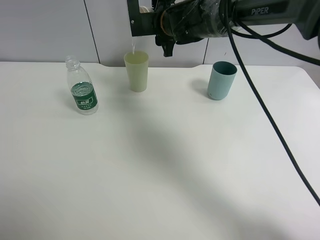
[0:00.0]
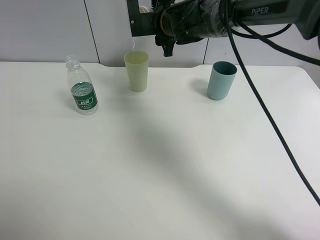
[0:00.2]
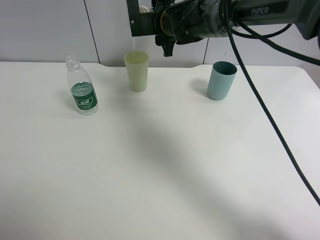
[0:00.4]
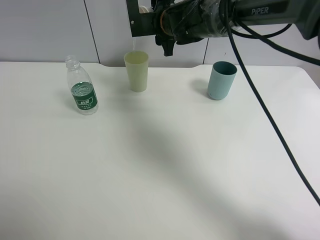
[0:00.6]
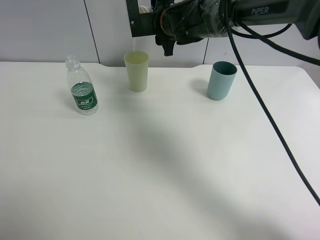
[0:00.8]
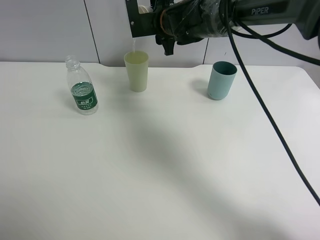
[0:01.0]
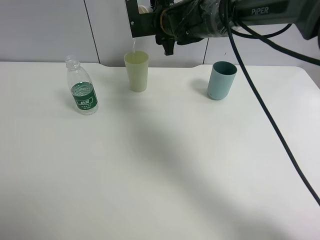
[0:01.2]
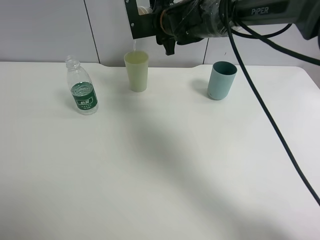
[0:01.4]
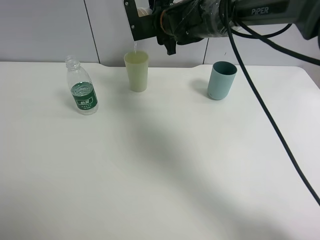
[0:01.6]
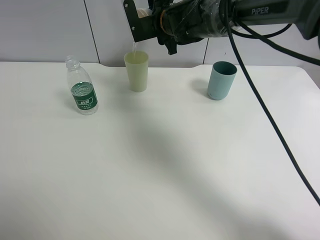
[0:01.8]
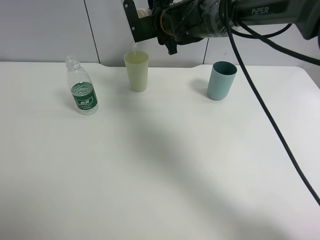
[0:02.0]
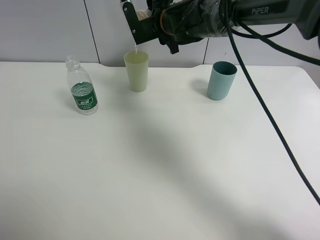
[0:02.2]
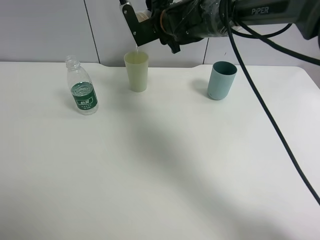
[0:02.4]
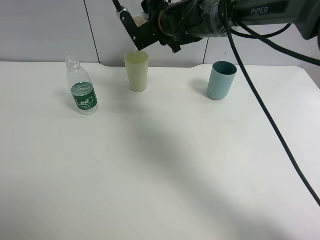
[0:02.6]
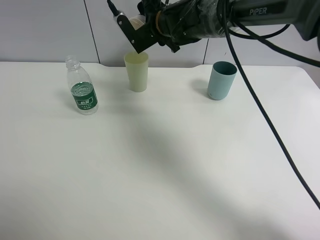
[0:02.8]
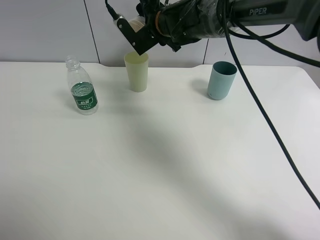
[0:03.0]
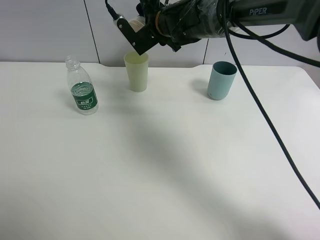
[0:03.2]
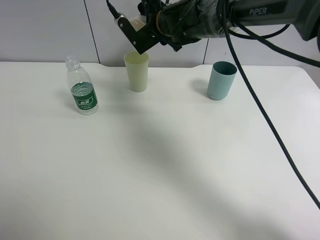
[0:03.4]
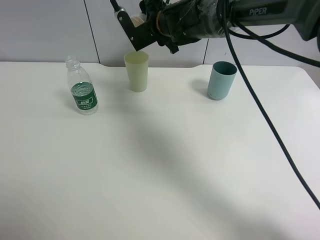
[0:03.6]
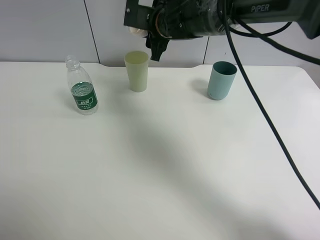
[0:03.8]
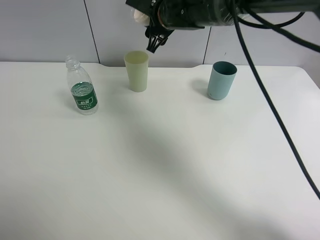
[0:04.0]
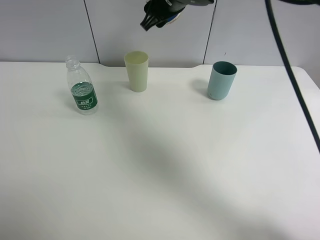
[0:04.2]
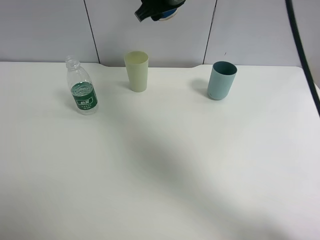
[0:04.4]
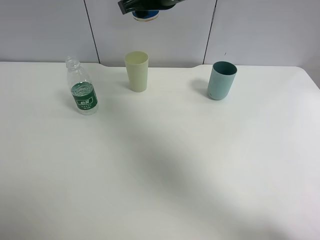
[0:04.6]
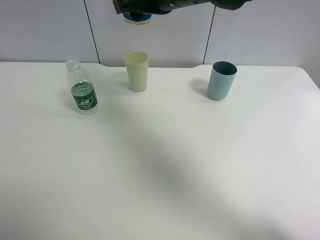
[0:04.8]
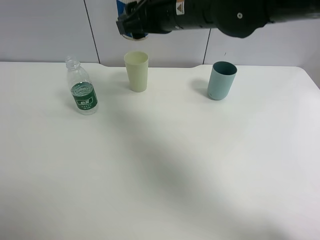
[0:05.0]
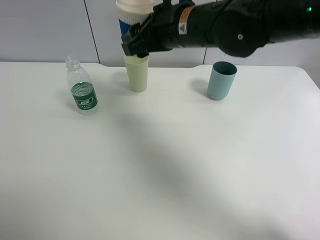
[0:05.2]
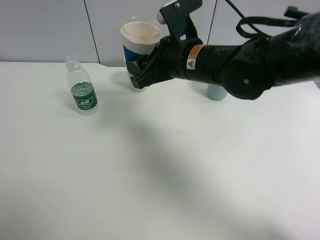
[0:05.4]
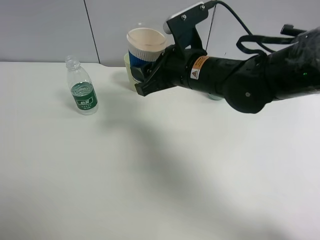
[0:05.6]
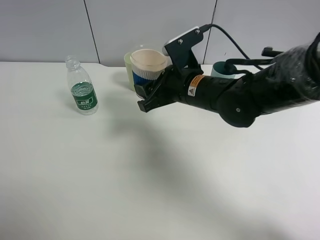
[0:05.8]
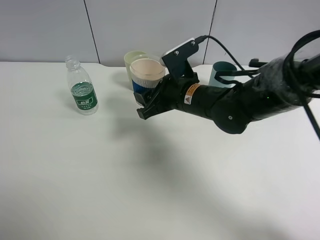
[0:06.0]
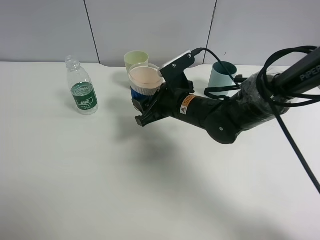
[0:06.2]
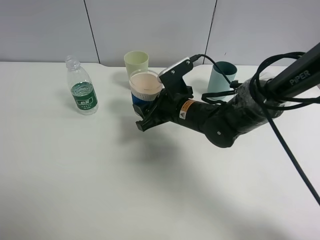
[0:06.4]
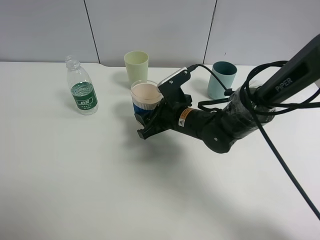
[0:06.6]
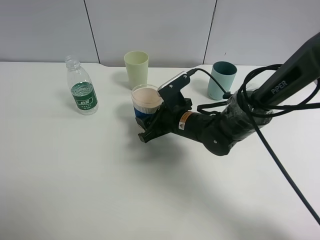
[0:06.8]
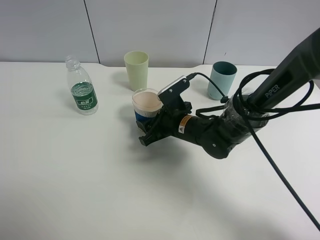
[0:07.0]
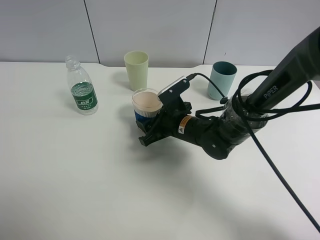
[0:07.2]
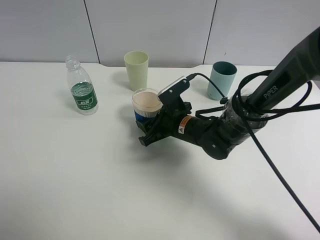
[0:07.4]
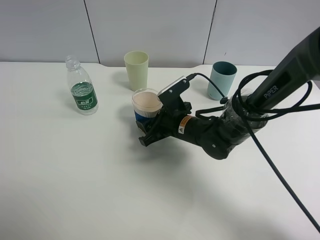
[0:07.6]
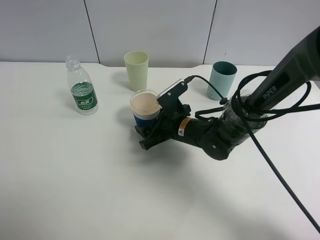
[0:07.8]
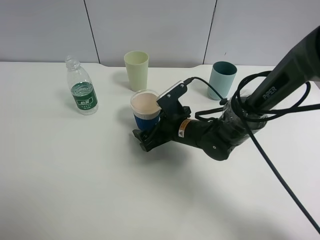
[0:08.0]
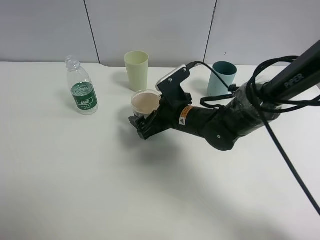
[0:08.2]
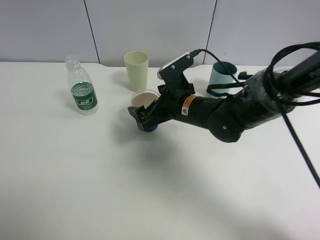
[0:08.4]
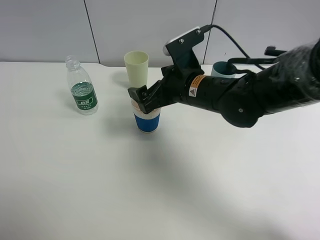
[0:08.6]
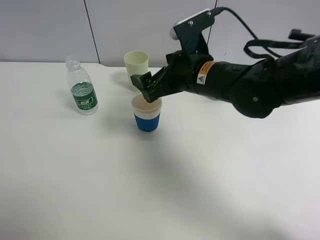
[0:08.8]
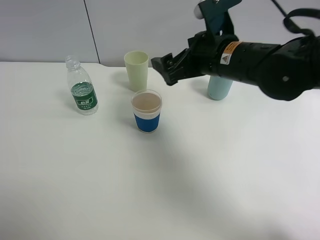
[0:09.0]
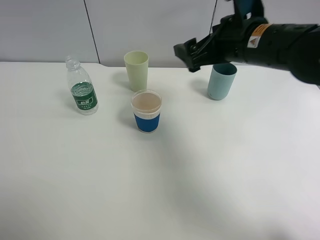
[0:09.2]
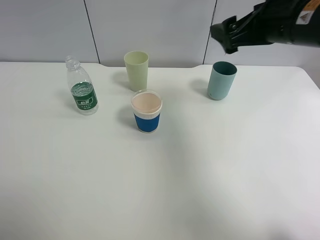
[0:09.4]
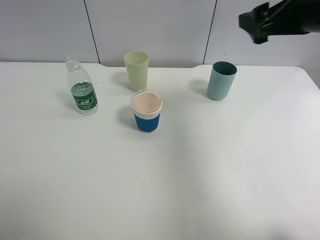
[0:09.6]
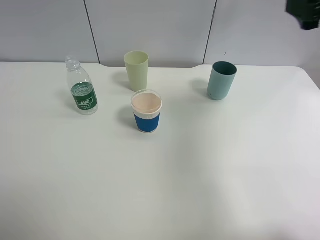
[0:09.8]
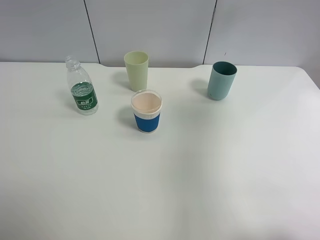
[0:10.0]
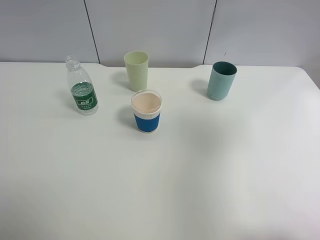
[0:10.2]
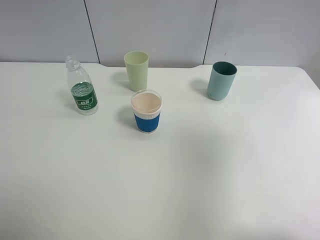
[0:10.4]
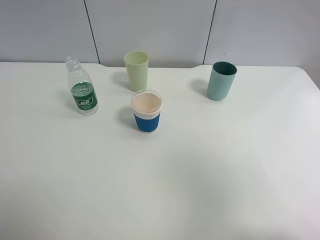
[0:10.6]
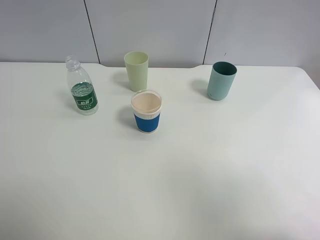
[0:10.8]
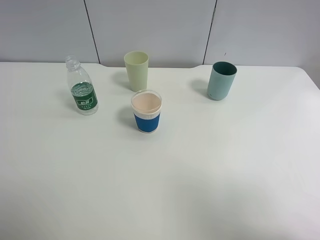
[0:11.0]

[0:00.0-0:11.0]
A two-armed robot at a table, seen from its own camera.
Task of the whole recording: use a clamp to hold the bottle of the drink, pour the beverage into a random cup, then clamp the cup containing the drink and pour the drink into another random cup.
Step, 0:00.0 to 0:03.8: Pour water into the green plastic cup with right gripper.
Step, 0:04.0 to 0:08.4: Place the green plastic cup on the table with right gripper.
0:03.2 to 0:04.8: The right gripper heads backward and upward, covering some 15 cm.
0:04.8 to 0:06.2: The right gripper shifts about 20 cm downward.
0:06.2 to 0:07.8: The right gripper heads downward, covering some 5 cm, and opens up.
0:07.8 to 0:09.4: The right gripper moves upward and to the right, some 30 cm, and opens its fingers.
0:09.4 to 0:11.0: The right gripper travels backward by roughly 30 cm.

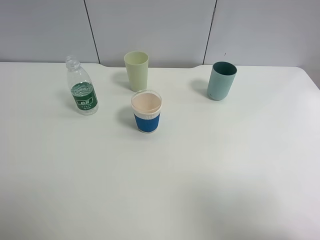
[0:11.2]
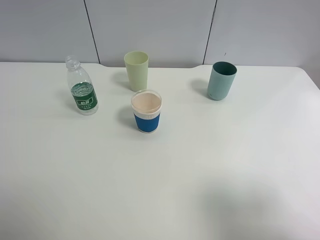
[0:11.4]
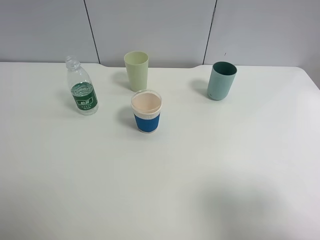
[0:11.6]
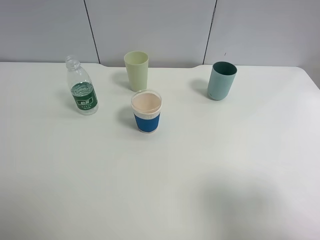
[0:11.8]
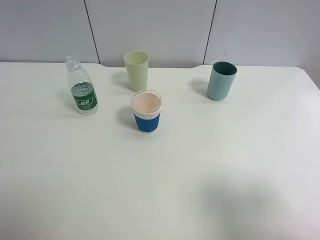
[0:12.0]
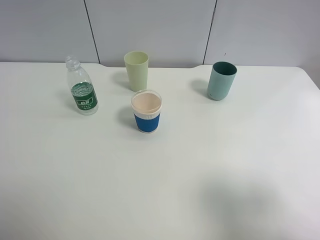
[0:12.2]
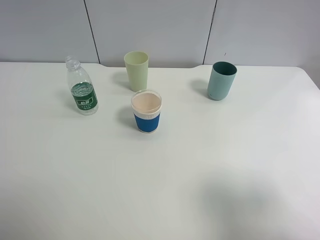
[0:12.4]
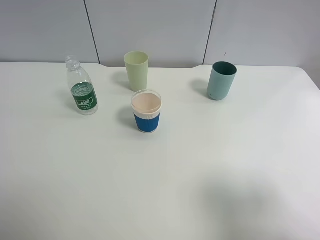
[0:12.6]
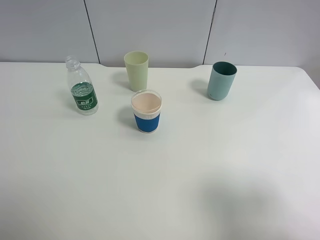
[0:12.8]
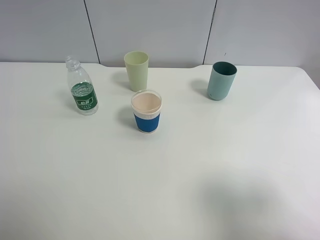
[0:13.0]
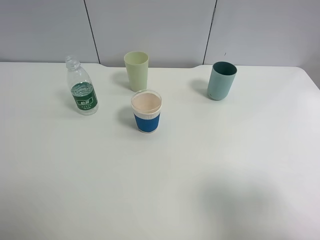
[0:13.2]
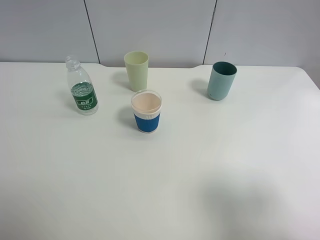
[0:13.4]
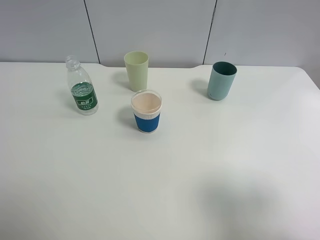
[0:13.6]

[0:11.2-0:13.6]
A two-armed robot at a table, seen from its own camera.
Task of the whole recording: use a clamp to hold the bottle of the drink, pour the beverage into a random cup, then clamp the cup containing the drink and pour the drink into another random cup.
0:12.4 to 0:13.6: Both grippers stay put.

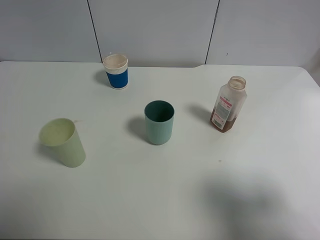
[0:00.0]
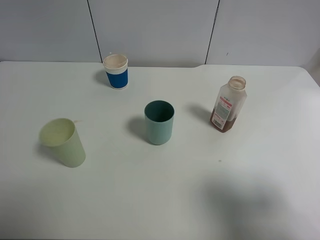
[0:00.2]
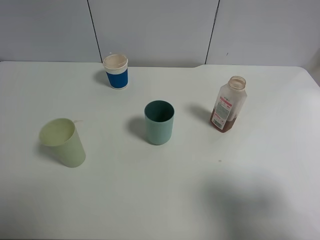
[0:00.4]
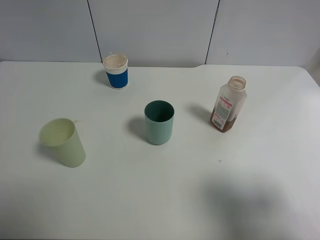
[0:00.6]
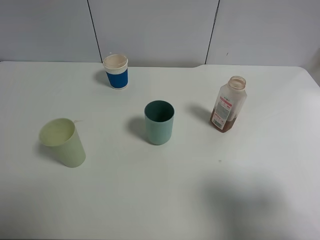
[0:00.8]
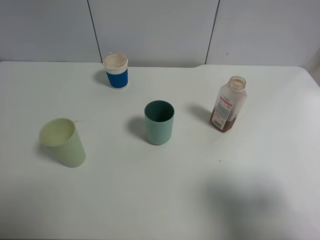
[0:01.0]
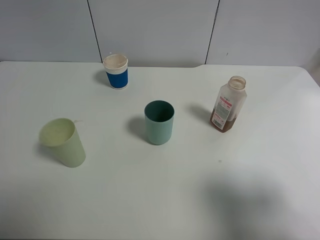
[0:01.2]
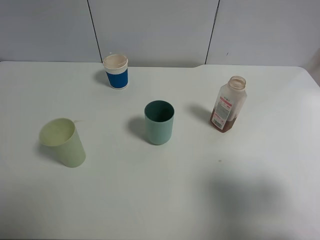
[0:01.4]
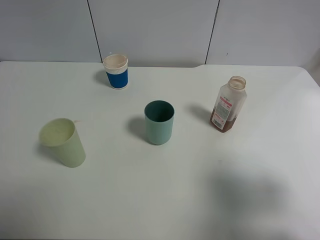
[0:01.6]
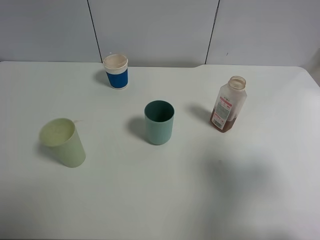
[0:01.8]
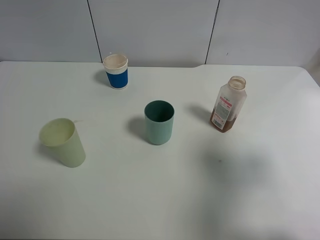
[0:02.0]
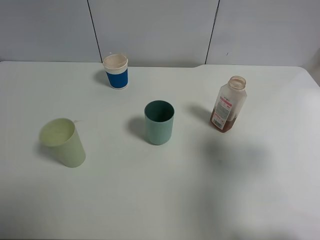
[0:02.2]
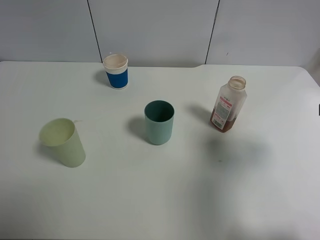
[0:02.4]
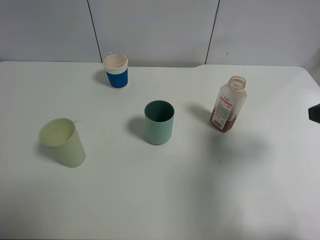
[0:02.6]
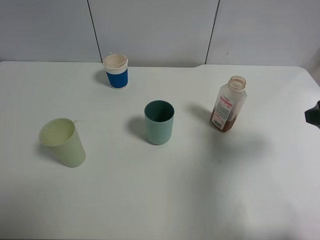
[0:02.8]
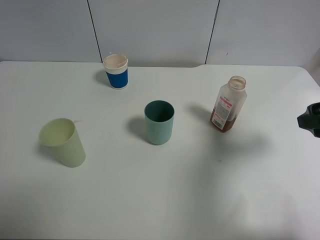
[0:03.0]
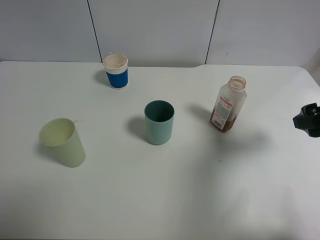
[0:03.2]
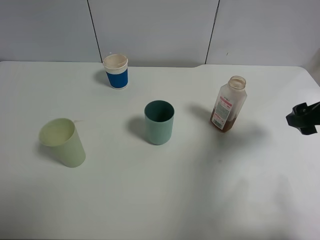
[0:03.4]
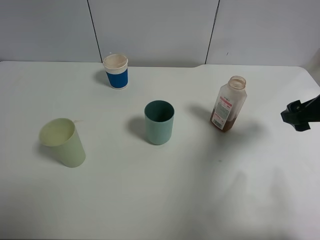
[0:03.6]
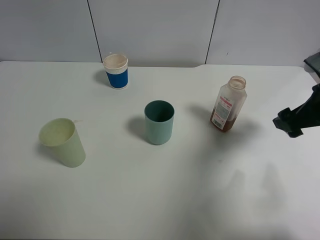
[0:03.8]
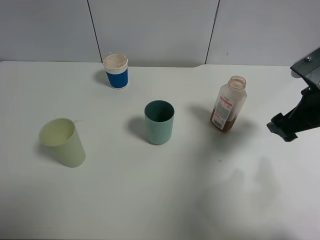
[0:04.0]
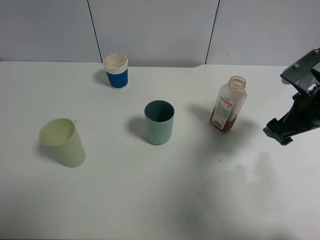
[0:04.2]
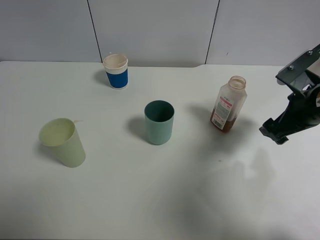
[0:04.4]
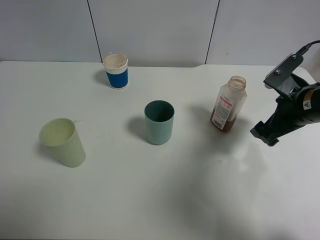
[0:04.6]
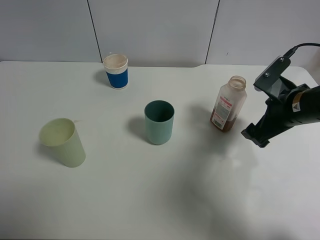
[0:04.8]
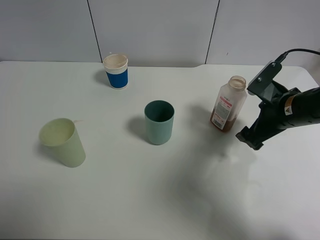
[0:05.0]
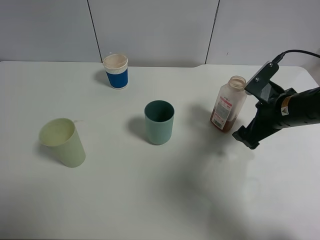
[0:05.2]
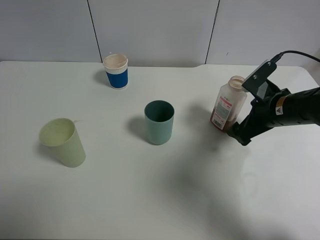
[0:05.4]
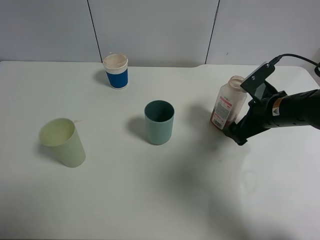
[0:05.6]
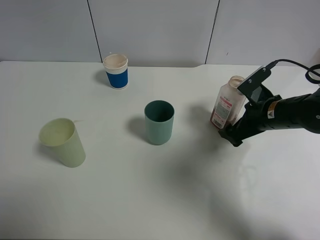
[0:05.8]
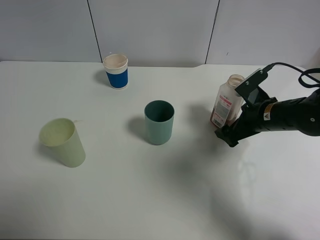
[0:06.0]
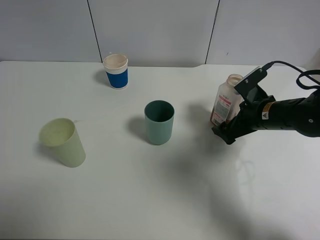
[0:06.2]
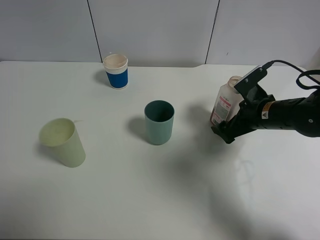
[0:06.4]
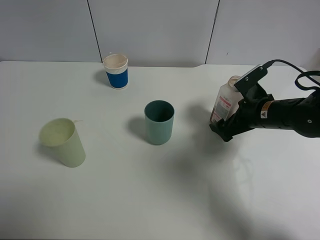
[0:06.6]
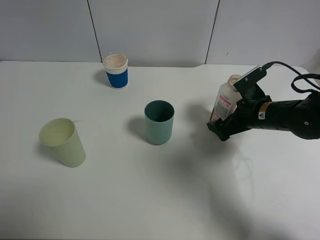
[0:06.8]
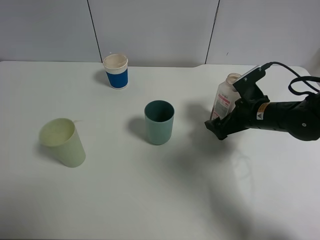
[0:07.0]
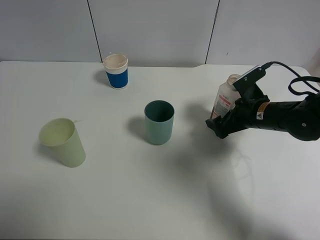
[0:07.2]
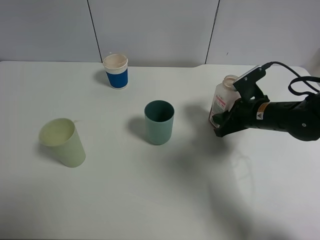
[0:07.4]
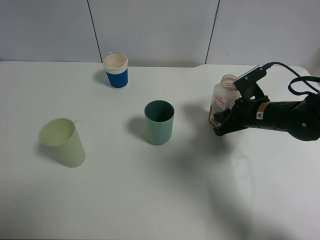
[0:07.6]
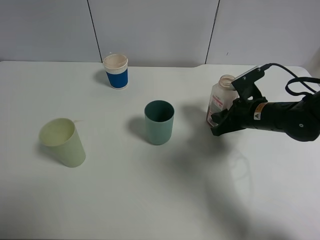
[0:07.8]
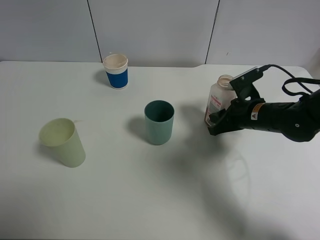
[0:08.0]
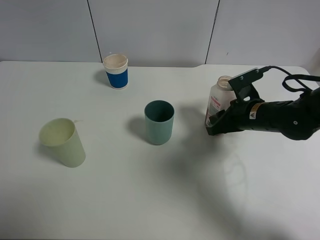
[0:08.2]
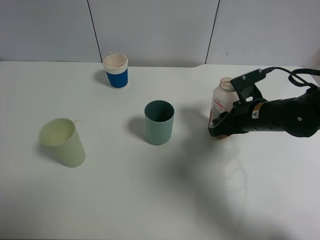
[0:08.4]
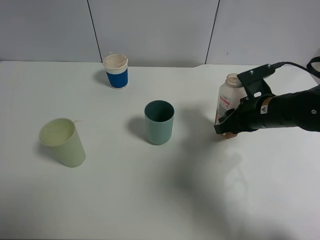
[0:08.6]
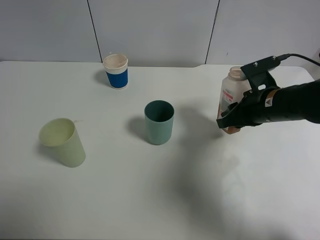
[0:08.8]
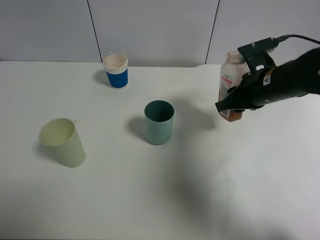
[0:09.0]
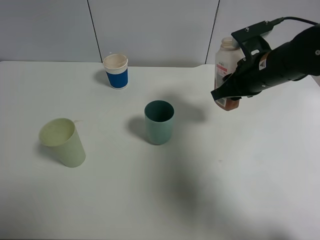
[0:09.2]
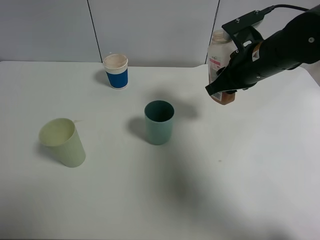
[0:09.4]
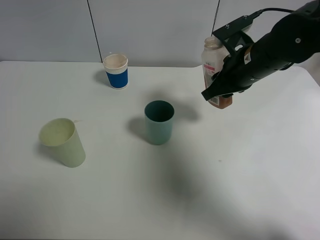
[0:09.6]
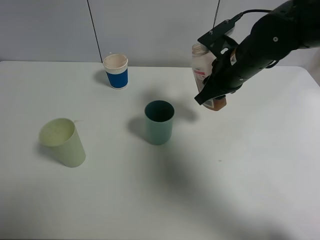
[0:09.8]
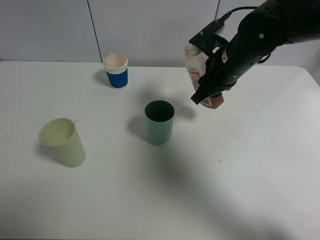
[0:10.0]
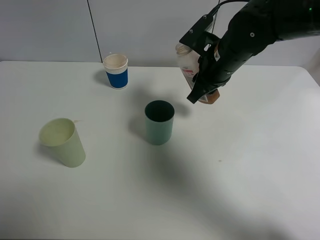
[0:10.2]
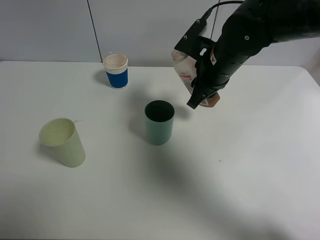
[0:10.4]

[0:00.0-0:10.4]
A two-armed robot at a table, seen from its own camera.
Task of the whole recording: use a clamp to hold the bottle of the drink, pour the beverage into a random cup, then clamp the cup containing the drink and pour the drink into another random cup.
Step, 0:00.0 to 0:08.8: Pick up the drink bottle with right gripper.
0:01.4 to 0:03.0: The right gripper goes some 15 cm forward.
0:03.0 to 0:04.4: The right gripper heads forward and downward, covering some 10 cm.
0:04.4 to 0:06.0: The right gripper moves downward, roughly 5 cm.
0:06.0 to 0:07.4: The right gripper closes its fingers.
0:07.4 to 0:09.0: The right gripper travels upward by roughly 10 cm.
0:09.0 to 0:10.4: The right gripper is displaced to the left by approximately 10 cm.
